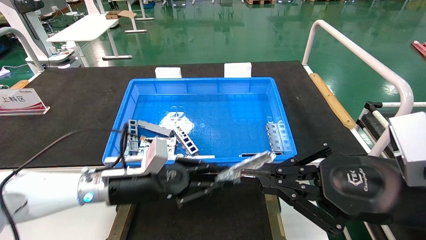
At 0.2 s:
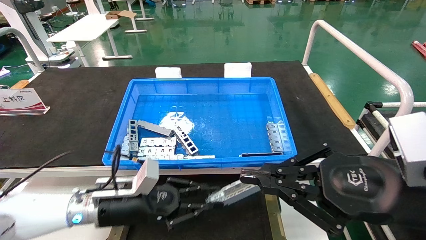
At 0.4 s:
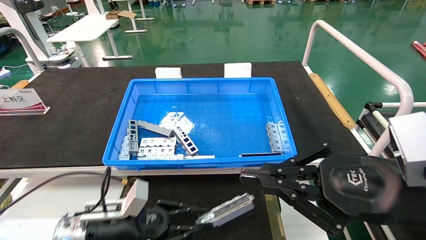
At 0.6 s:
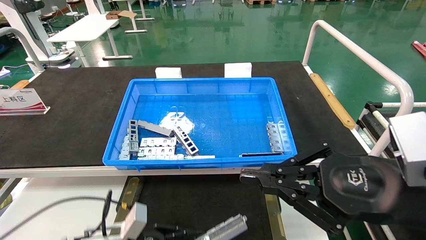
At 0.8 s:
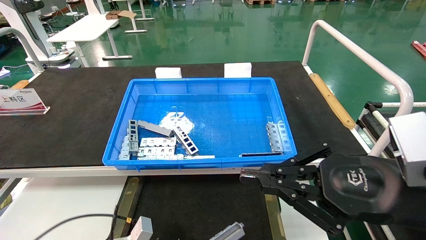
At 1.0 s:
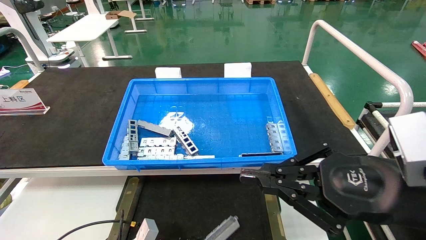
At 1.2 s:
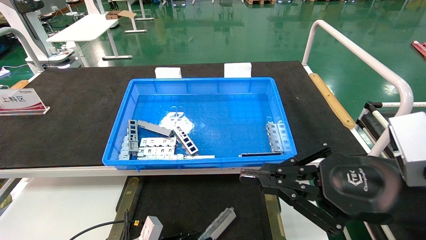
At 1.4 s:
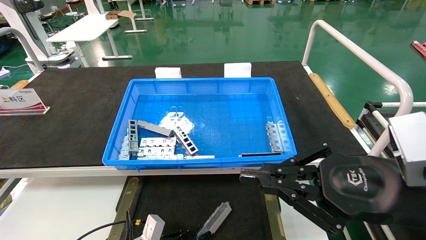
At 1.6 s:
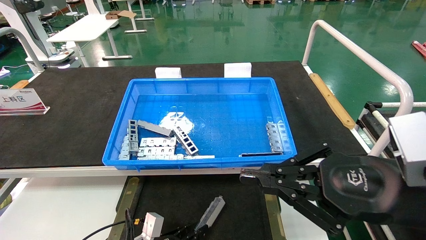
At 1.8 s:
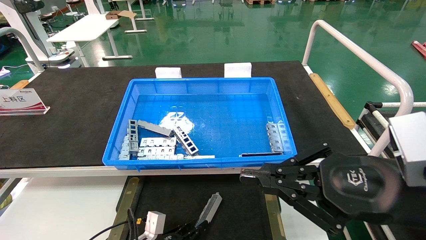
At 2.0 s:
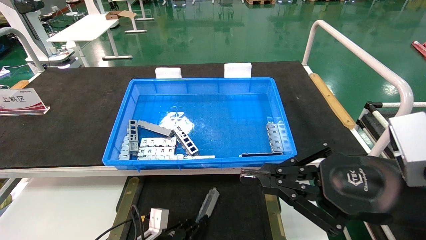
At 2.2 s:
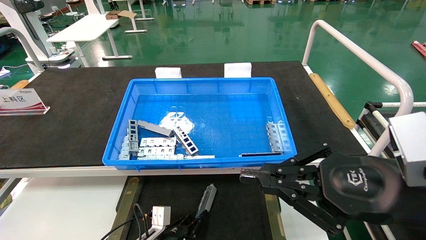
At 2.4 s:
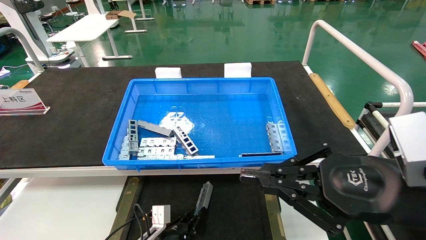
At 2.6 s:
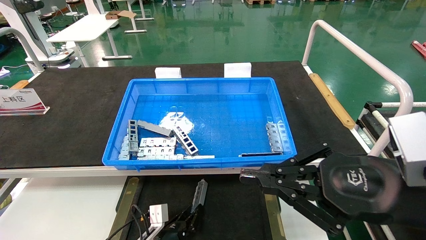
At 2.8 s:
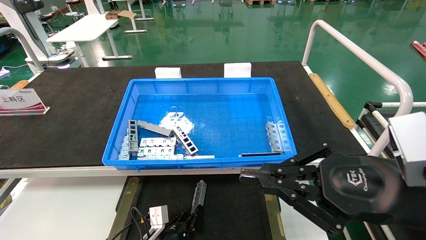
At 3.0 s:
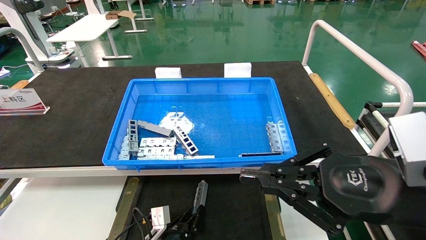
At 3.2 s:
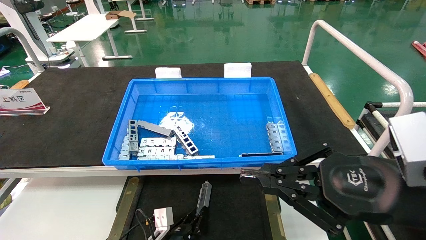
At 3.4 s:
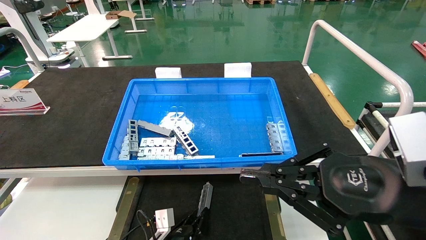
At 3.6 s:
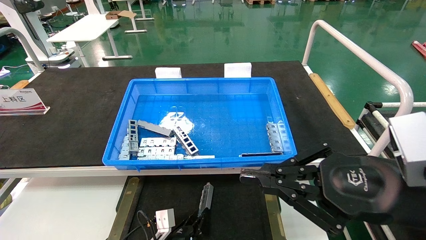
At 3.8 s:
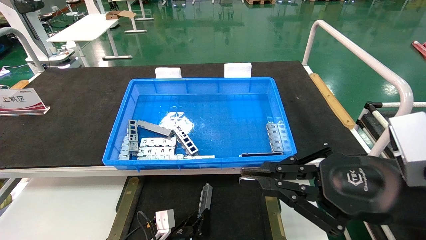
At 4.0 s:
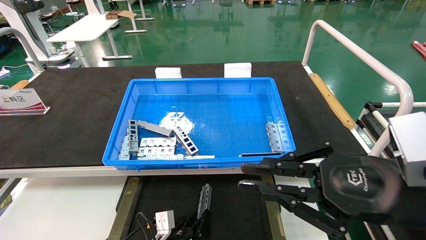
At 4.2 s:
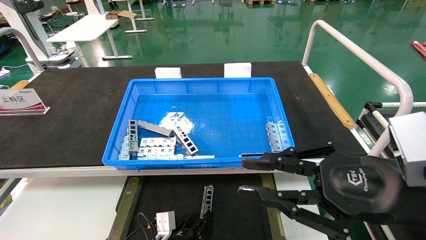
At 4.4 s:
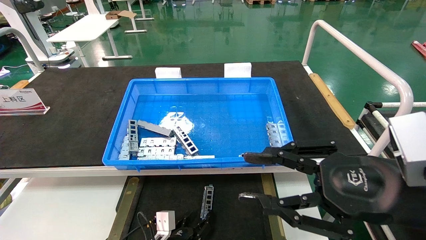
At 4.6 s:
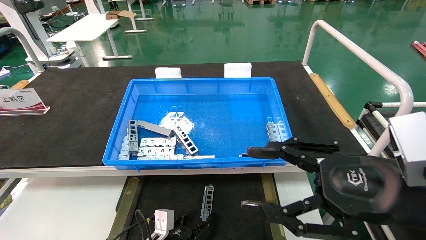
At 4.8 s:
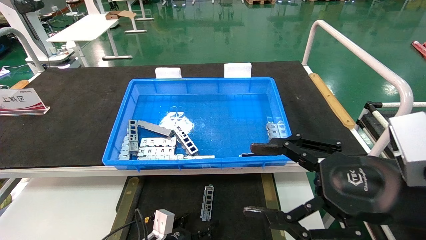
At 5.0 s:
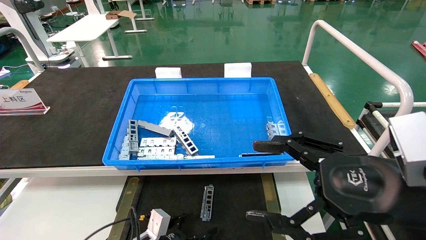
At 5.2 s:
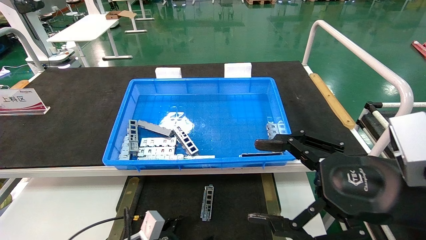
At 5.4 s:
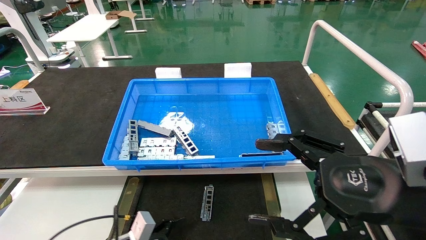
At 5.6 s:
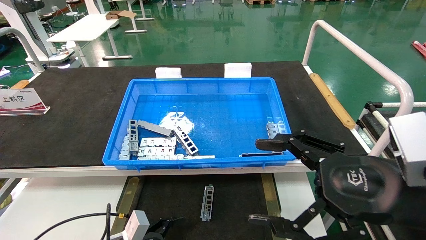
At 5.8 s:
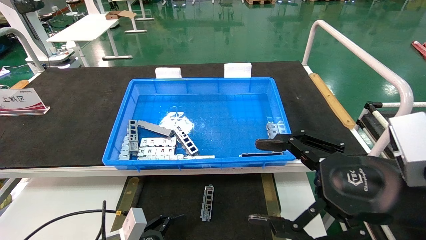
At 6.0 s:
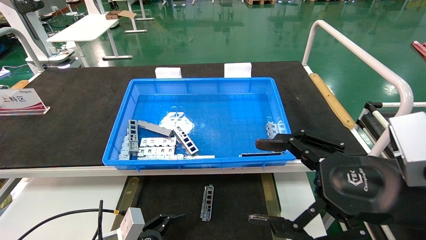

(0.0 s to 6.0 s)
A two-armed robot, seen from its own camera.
Task of the whole recording: Grasp the part with one hand and place it on the black container.
Step, 0.0 s - 4.4 s: Place the front USB bracket into the box.
0.0 s - 1.6 s: The left gripper goes some 20 cm downward.
1.6 s - 3.0 s: The left gripper goes about 5 cm to the right.
3.0 s - 4.4 s: The grippers stay close to where they were, moving slightly.
4.4 s - 6.0 s: The left gripper goes about 15 cm upward, to the left and backward, and opens its fingers; the right gripper opens up.

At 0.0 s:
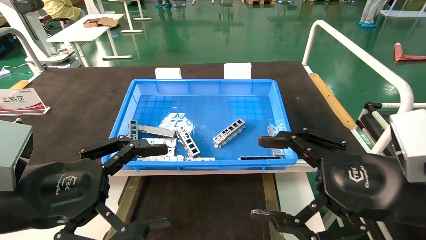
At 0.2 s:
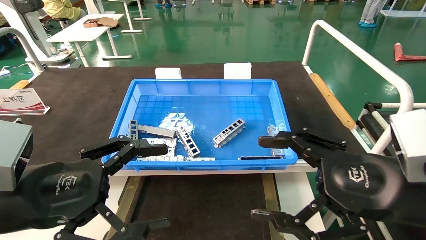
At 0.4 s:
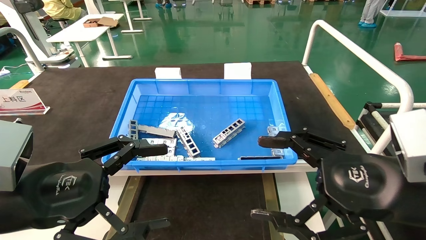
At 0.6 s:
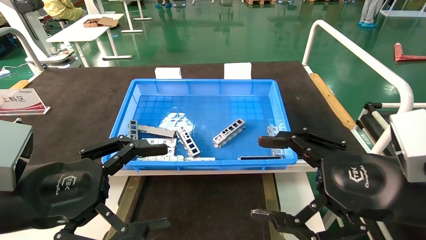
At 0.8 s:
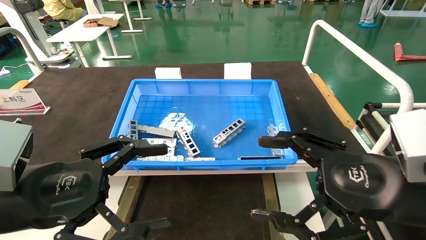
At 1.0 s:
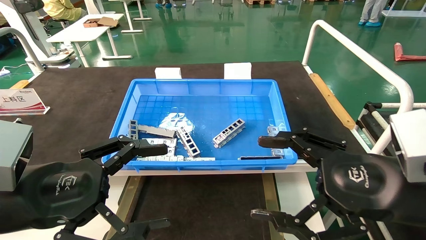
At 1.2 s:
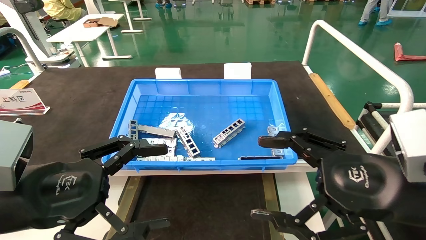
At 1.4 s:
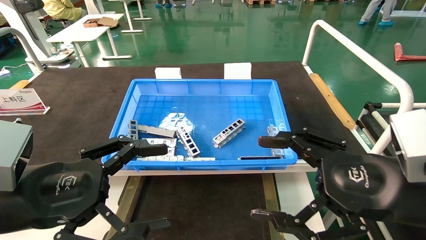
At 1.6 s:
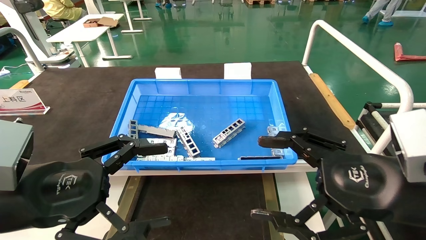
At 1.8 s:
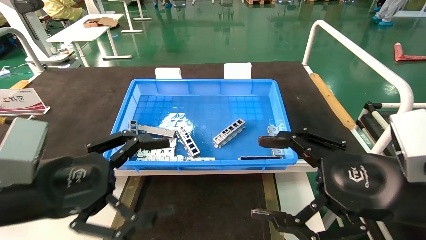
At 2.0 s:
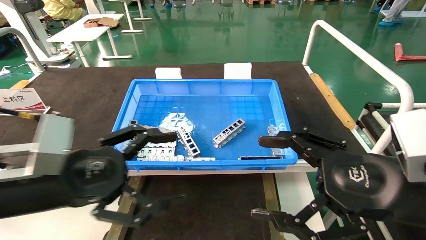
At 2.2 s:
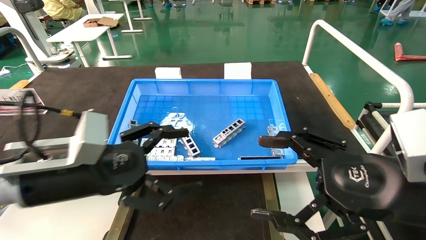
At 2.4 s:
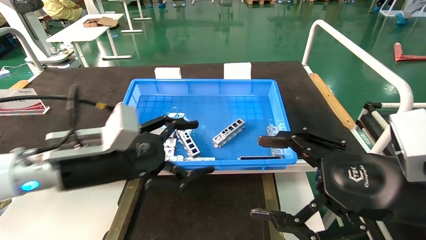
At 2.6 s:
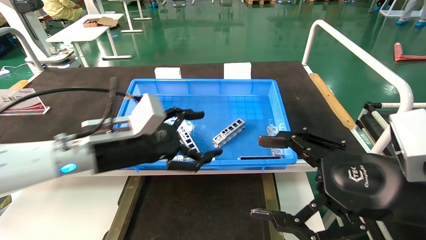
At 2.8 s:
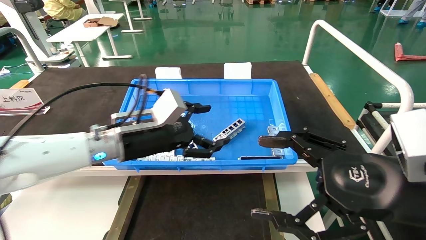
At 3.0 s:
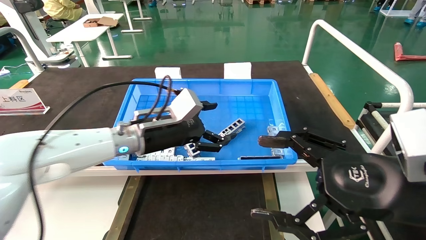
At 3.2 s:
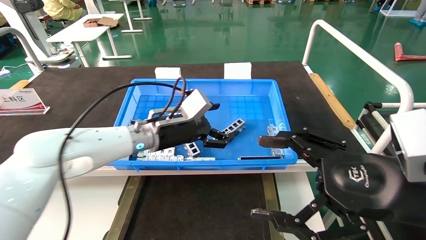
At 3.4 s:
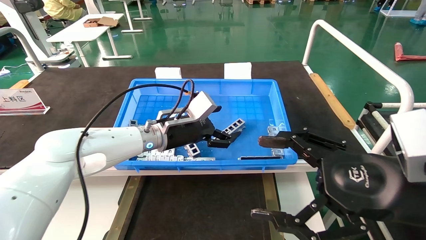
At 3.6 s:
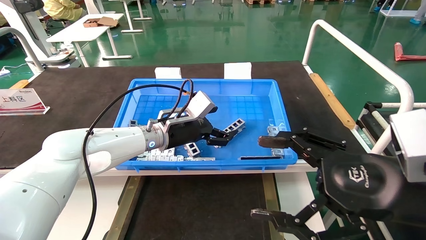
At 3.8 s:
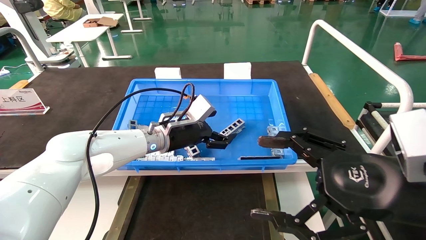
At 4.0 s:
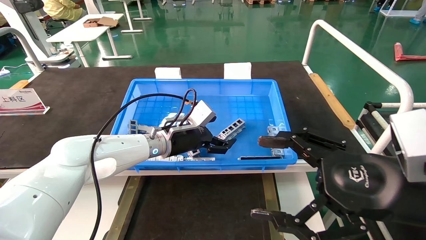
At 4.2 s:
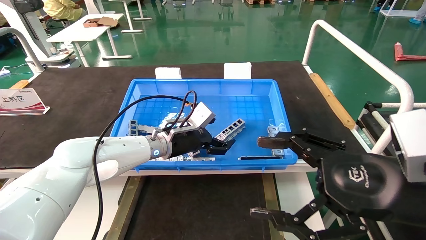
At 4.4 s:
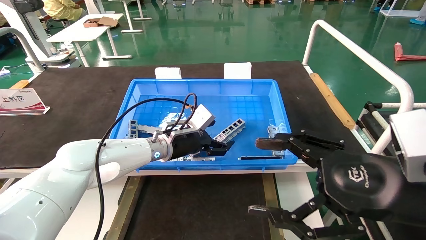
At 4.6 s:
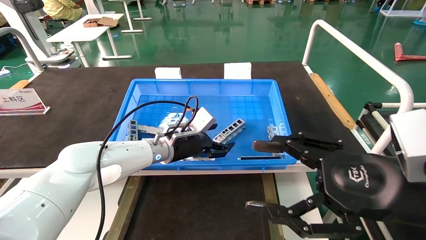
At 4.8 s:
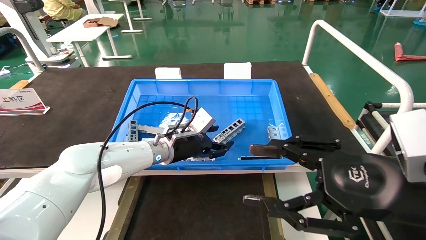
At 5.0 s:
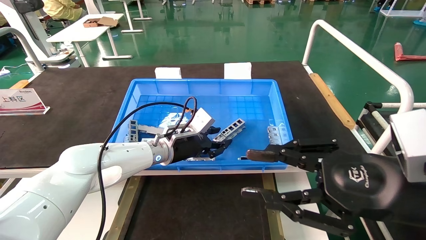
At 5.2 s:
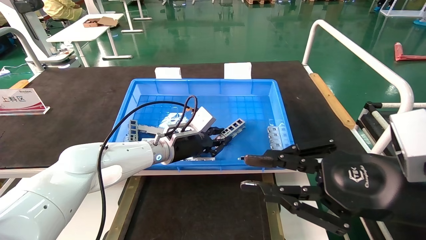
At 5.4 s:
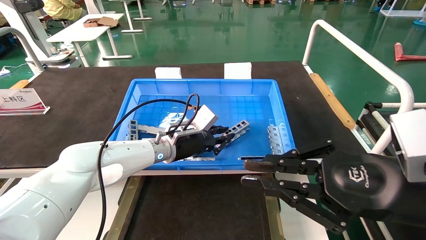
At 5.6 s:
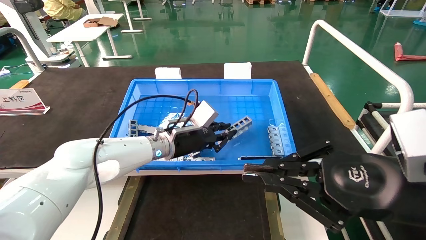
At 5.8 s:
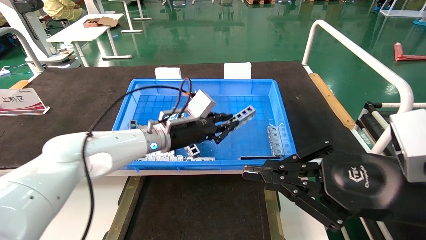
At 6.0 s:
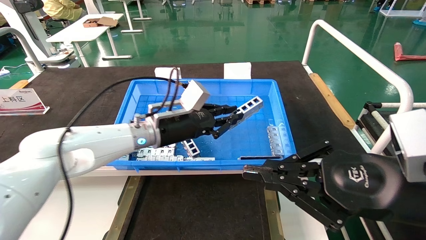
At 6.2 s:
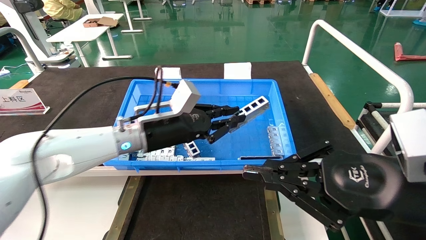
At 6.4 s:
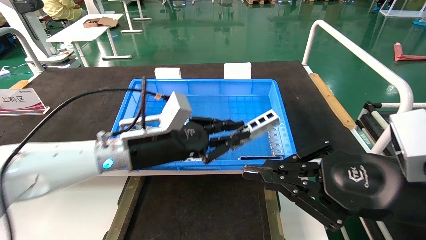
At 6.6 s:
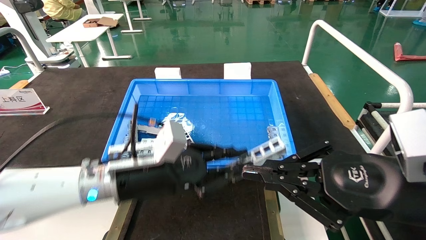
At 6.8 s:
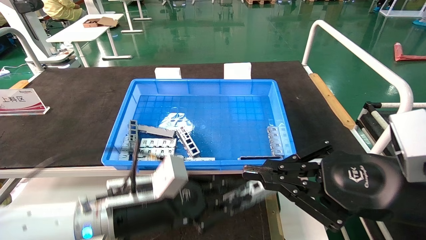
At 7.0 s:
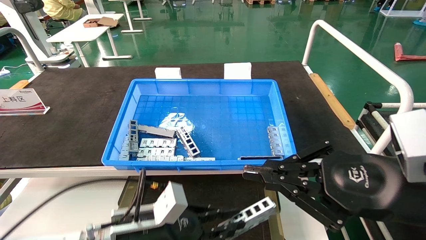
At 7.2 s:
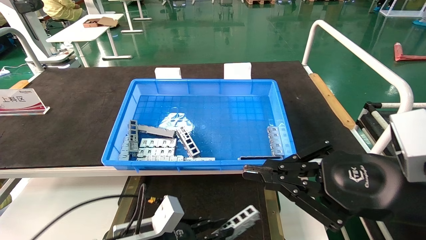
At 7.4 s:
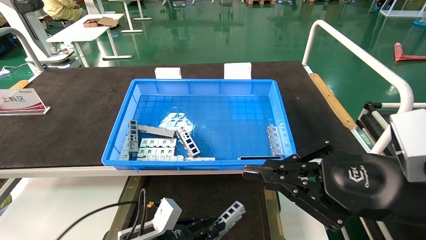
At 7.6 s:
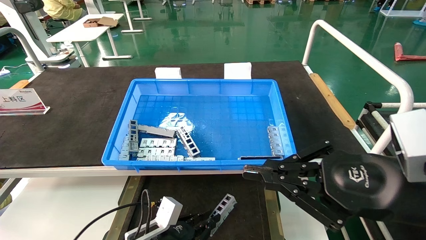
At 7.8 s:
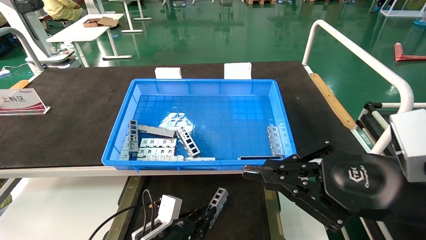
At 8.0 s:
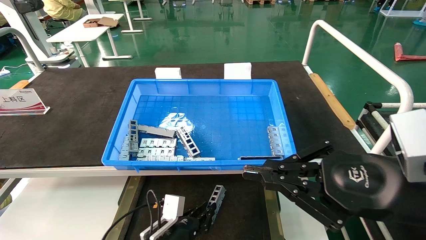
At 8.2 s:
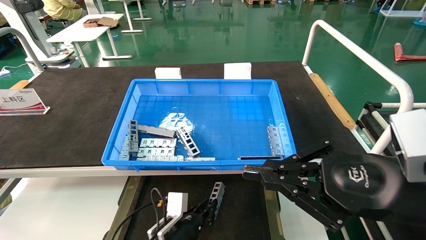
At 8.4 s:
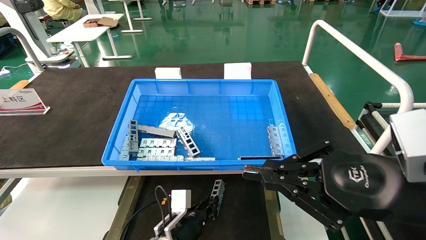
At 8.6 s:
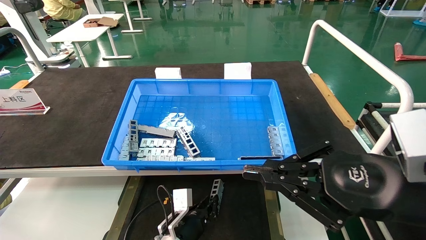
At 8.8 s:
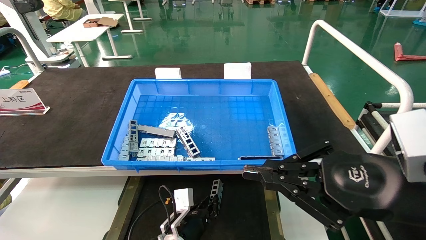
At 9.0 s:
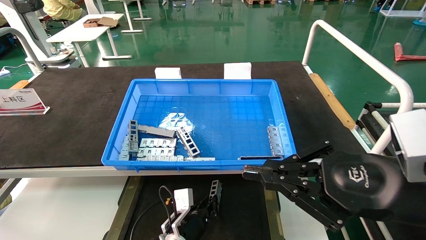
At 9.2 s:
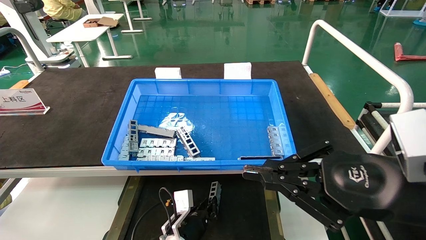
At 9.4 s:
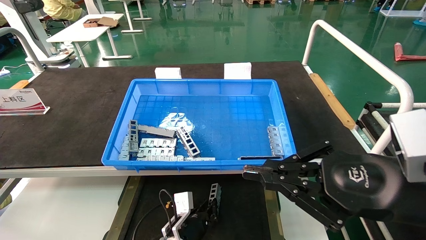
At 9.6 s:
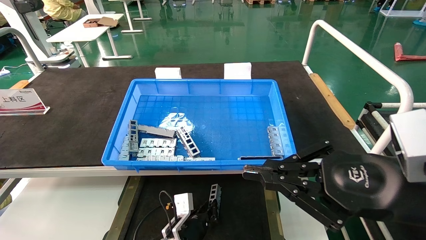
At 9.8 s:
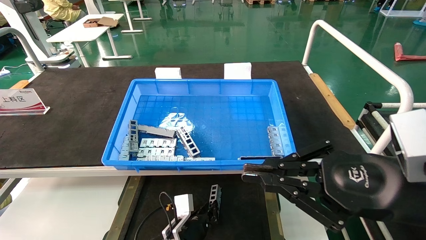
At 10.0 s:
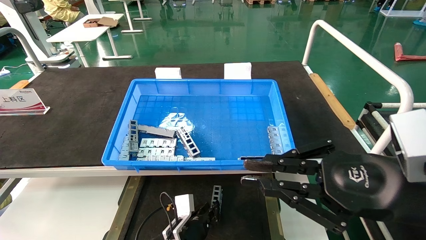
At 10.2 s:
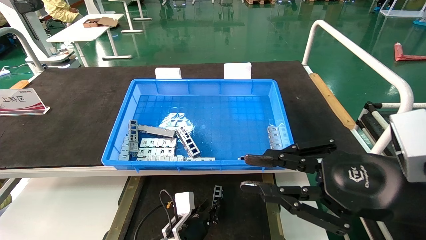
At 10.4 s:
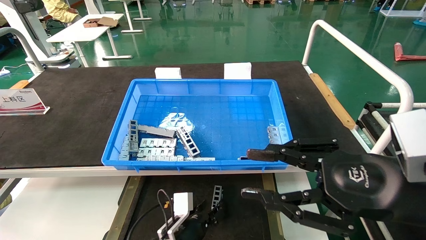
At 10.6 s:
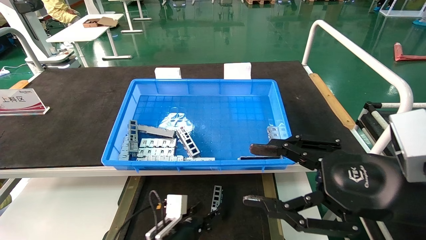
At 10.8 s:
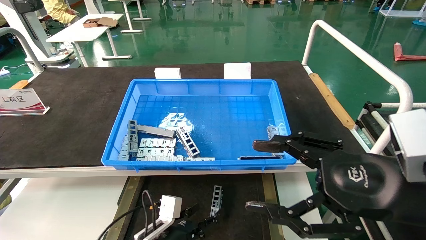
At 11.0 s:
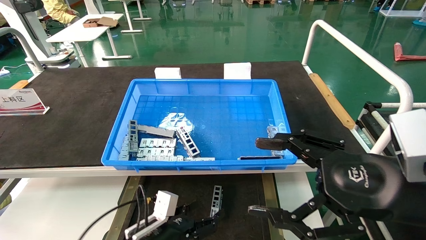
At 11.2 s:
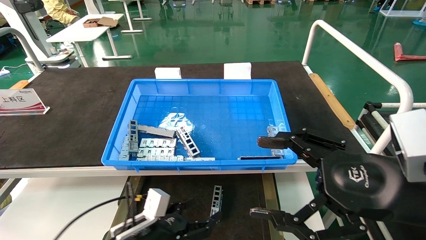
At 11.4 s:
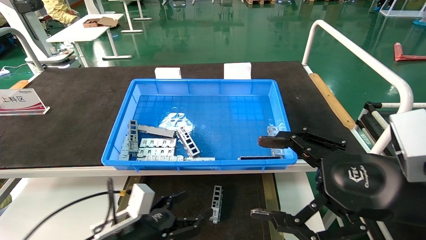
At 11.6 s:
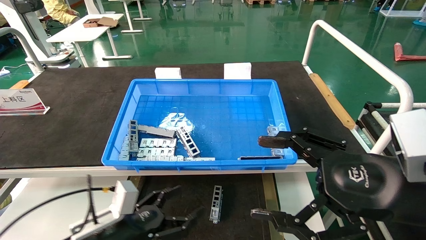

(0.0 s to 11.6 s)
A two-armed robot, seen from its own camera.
Task of the whole recording: Grasp the part with one hand and place it on the black container.
Step, 2.0 s - 5.6 s: Pick up the front USB bracket from the feeding area.
Step, 5.8 s - 9.8 s: Place the front USB bracket into the box.
0.0 s - 1.4 s: Both grippers stay about where they are.
1.4 s - 2.8 s: The left gripper moves forward and to the right, about 20 cm.
2.8 s - 4.4 s: The left gripper heads forward, downward and to the right, covering some 15 cm.
4.4 s - 5.8 s: The left gripper closes its fingers. The right gripper closes its fingers.
5.8 s - 7.2 s: The left gripper heads downward and backward, covering roughly 25 cm.
7.2 s - 8.8 s: The left gripper heads downward, forward and to the right, covering some 15 cm.
8.8 s - 10.2 s: The grippers move only a little.
10.2 s - 11.6 s: The right gripper opens up. The left gripper shifts about 20 cm to the left, upward and backward, and opens up.
